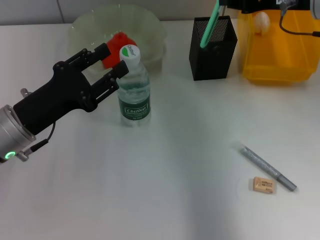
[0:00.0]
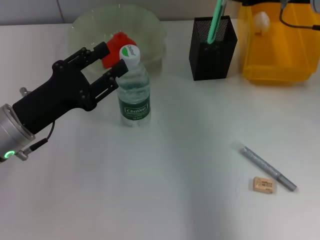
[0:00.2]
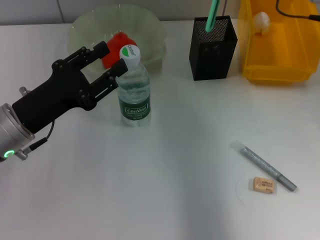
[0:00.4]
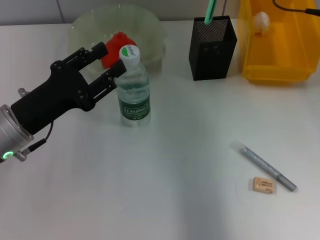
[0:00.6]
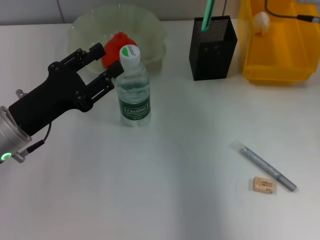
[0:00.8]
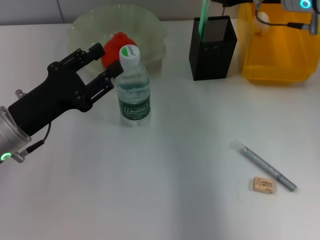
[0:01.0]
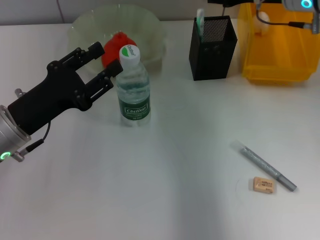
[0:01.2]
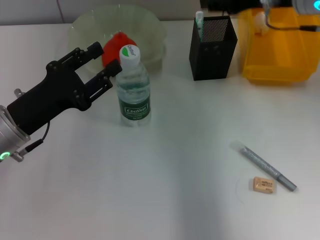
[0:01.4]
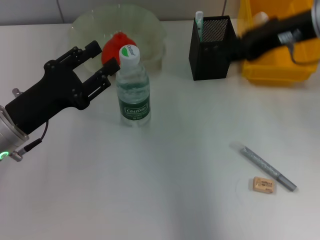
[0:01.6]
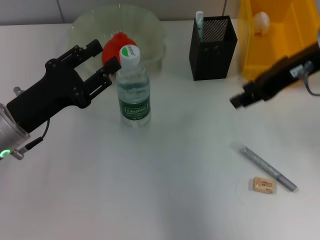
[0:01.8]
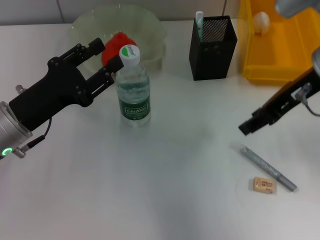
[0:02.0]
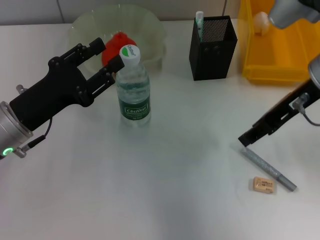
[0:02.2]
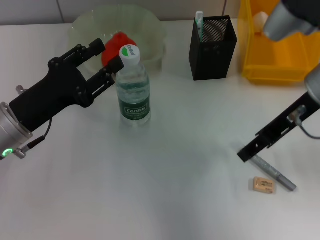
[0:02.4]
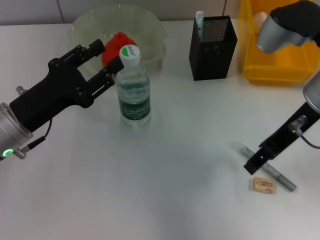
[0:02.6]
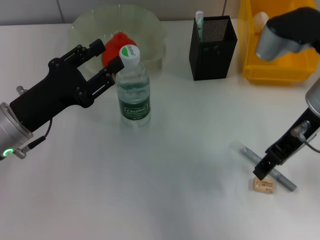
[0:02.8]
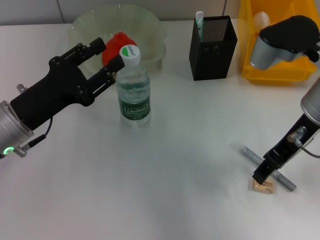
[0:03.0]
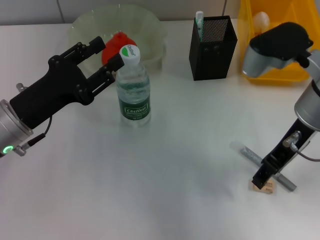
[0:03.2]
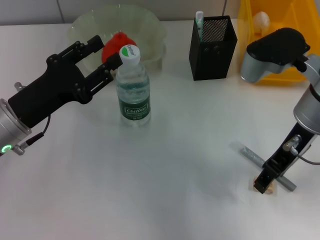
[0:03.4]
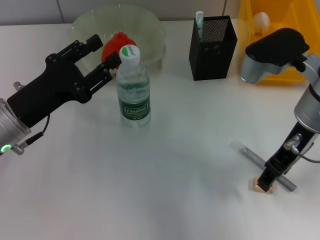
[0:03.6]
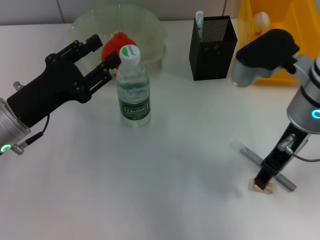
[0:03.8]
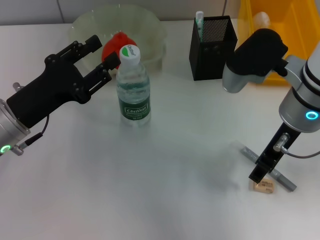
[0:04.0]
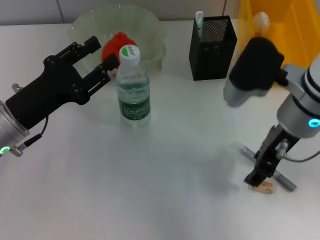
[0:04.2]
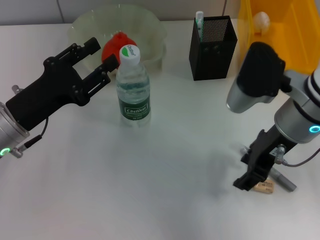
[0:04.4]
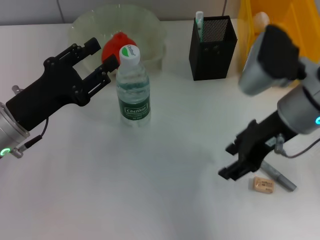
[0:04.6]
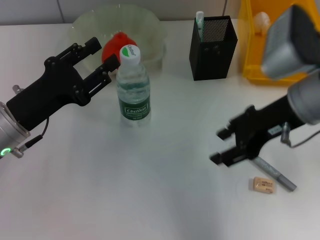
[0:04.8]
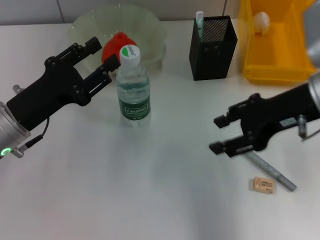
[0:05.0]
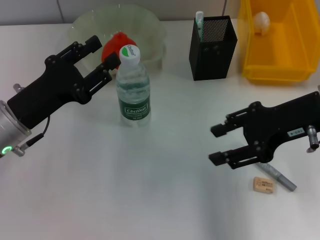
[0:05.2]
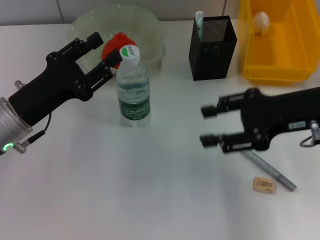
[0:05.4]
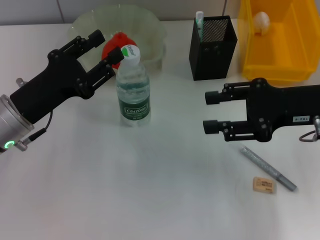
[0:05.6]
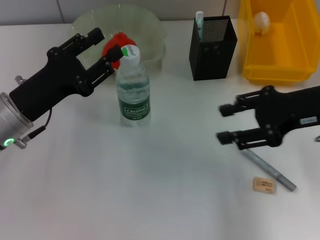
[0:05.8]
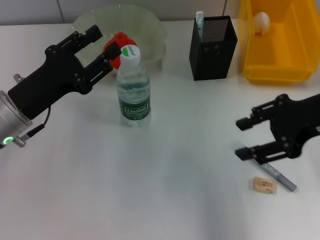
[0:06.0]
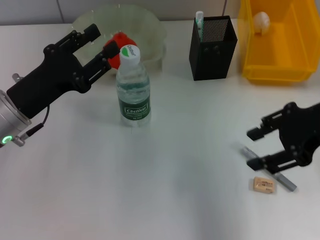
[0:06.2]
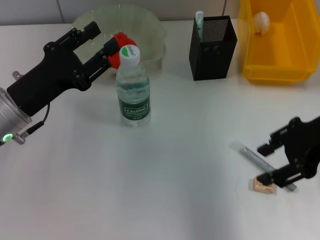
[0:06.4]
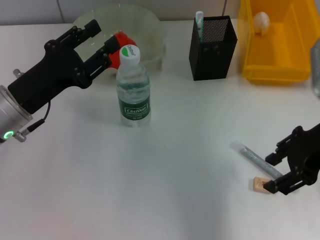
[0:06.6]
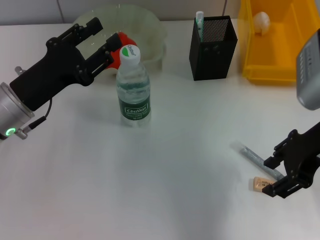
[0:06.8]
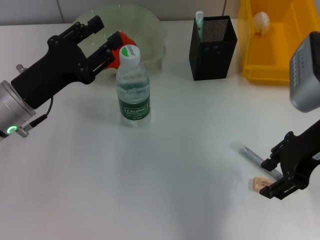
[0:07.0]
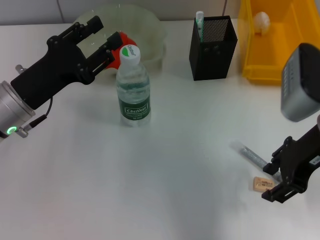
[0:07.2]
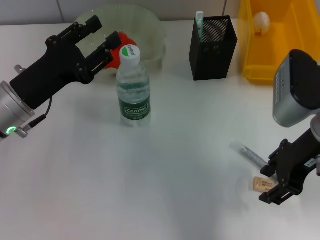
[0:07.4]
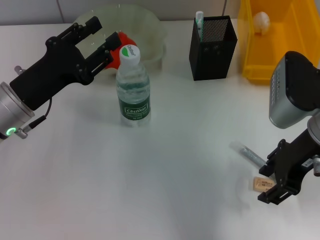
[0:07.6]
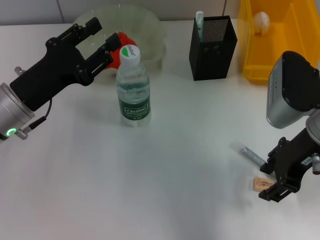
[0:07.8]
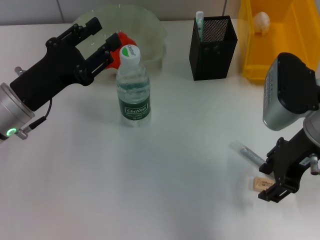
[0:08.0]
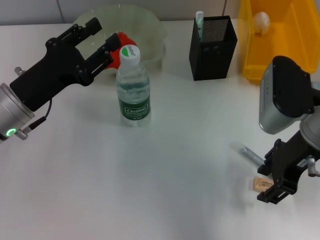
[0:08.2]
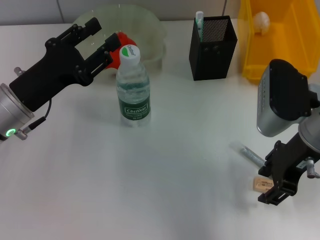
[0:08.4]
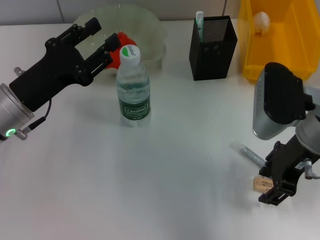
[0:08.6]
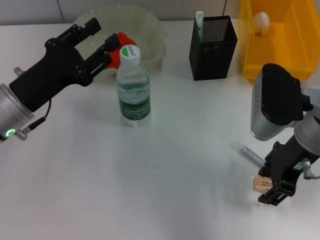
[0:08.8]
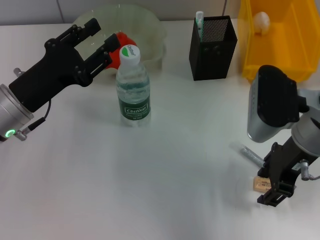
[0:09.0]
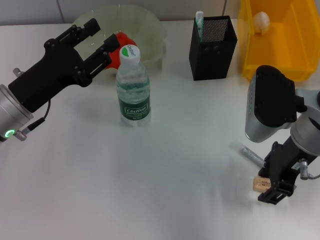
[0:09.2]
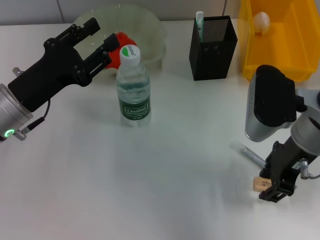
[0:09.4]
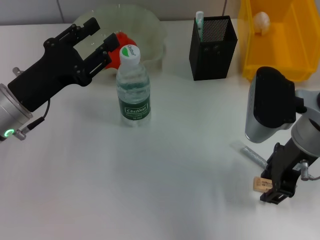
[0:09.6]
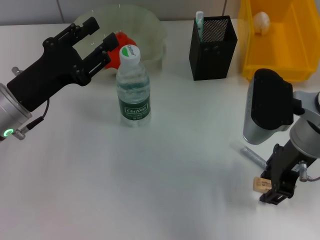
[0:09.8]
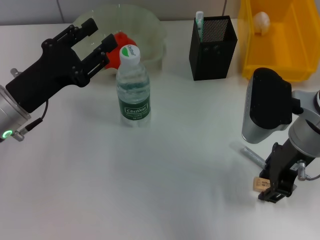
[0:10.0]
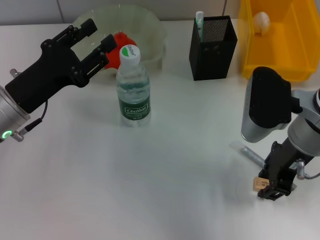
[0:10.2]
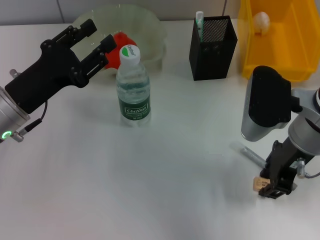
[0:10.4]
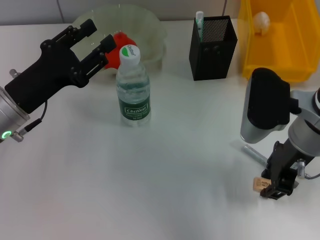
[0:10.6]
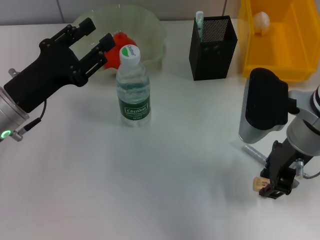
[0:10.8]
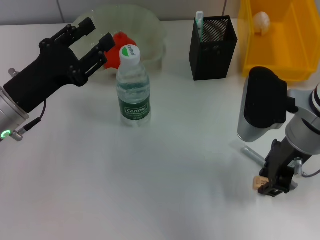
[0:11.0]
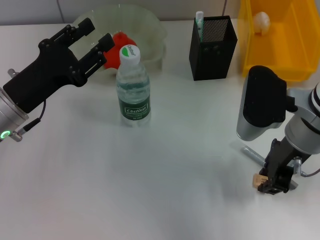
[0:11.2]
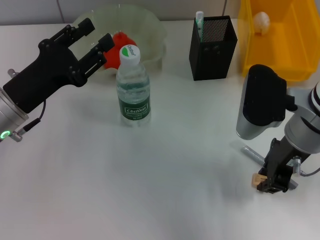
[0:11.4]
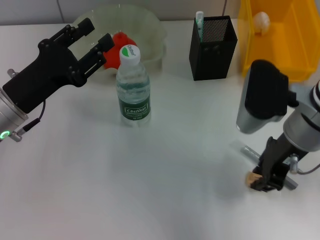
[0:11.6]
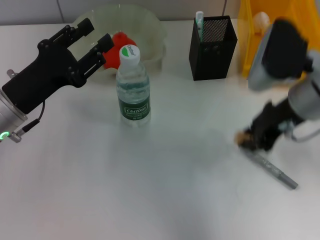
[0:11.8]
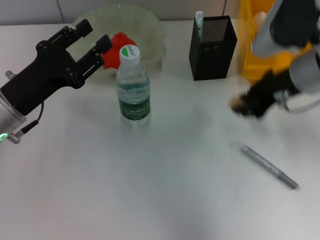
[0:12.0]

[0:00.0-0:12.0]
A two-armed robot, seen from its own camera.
Step, 0:00.0 to 0:01.4: Place the blue utility knife into the pen holder with the right hand.
Step, 0:01.6 to 0:11.2: Grab the eraser with the right hand.
0:00.0 to 0:01.6: The right gripper opens up.
0:01.6 to 0:03.0: The right gripper shifts by about 5 cm.
0:04.4 to 0:06.0: The right gripper travels to the right by roughly 10 cm.
0:06.0 to 0:07.6: The right gripper shifts by roughly 5 cm.
0:07.6 to 0:09.0: The grippers move only a little.
0:09.0 to 0:10.4: Both grippers stay about where they are.
0:10.4 to 0:12.0: The right gripper shifts by about 5 cm.

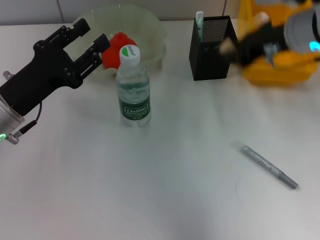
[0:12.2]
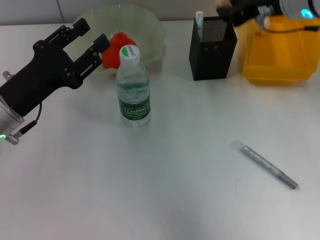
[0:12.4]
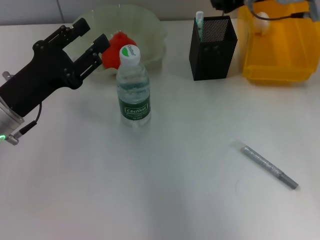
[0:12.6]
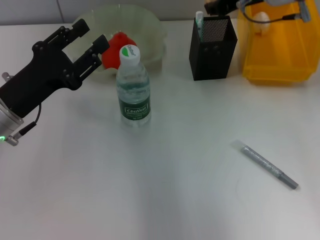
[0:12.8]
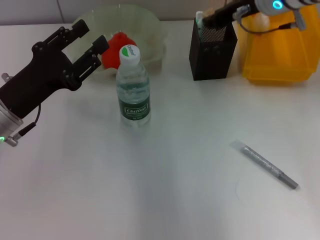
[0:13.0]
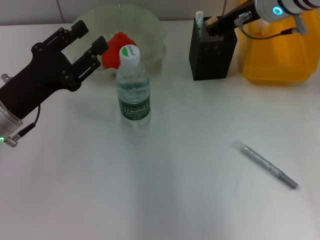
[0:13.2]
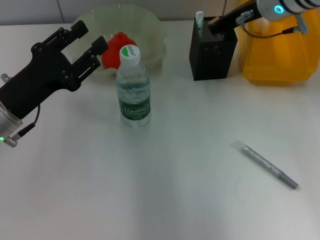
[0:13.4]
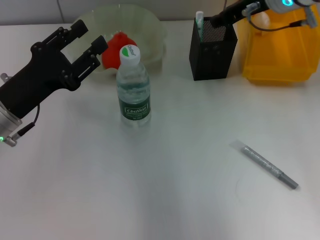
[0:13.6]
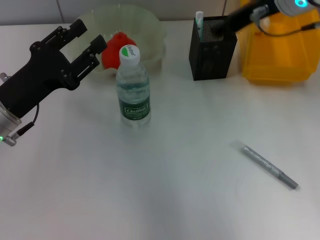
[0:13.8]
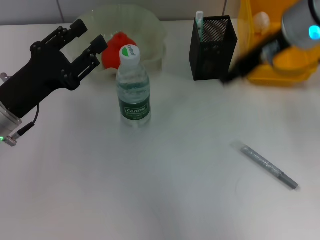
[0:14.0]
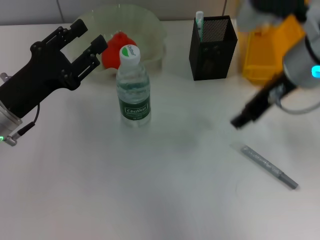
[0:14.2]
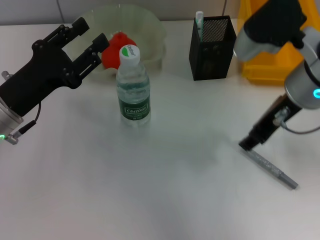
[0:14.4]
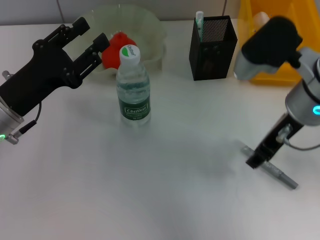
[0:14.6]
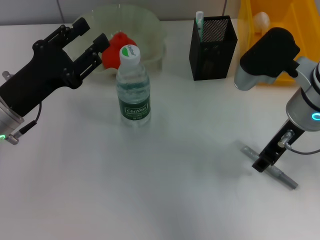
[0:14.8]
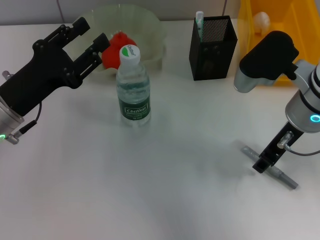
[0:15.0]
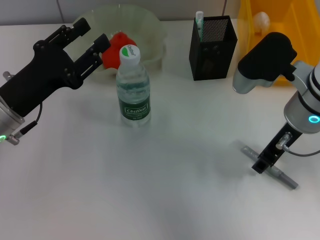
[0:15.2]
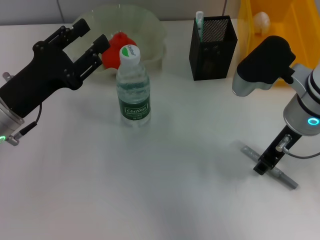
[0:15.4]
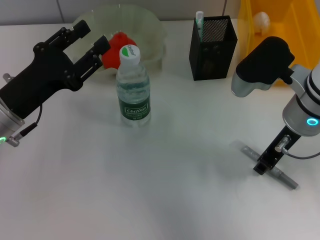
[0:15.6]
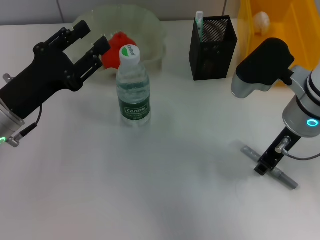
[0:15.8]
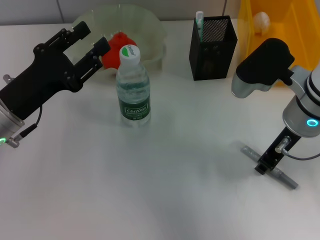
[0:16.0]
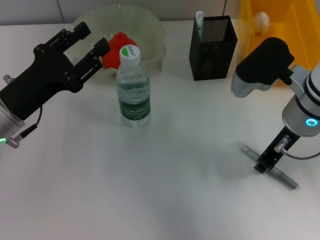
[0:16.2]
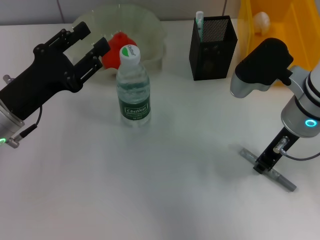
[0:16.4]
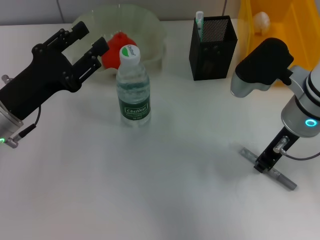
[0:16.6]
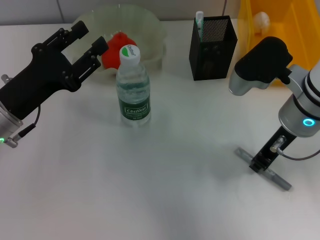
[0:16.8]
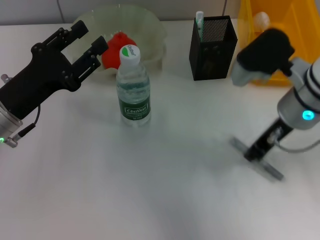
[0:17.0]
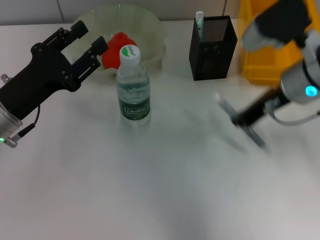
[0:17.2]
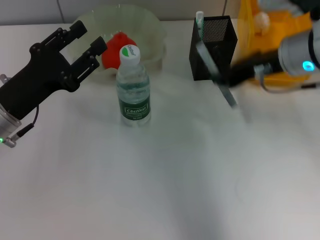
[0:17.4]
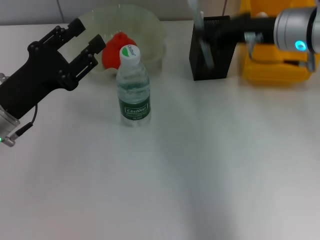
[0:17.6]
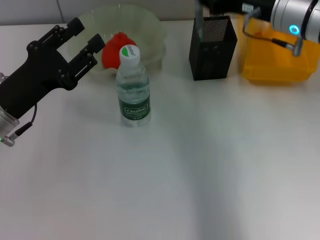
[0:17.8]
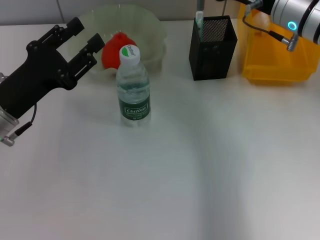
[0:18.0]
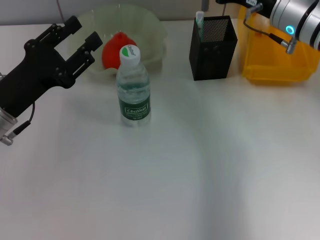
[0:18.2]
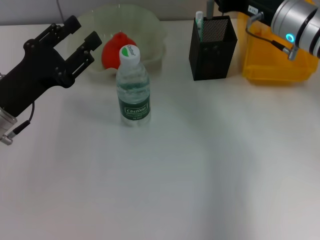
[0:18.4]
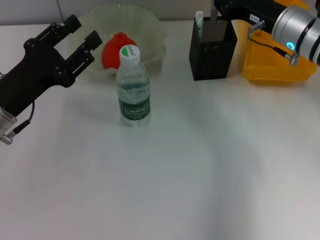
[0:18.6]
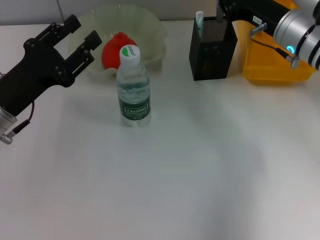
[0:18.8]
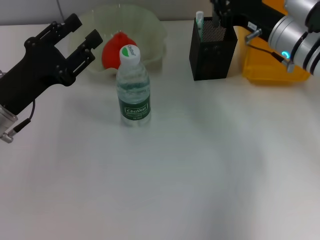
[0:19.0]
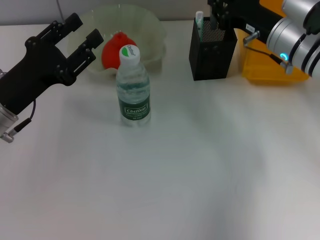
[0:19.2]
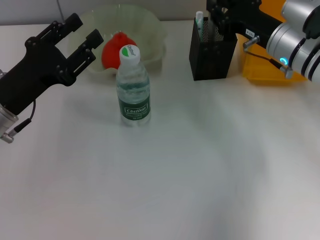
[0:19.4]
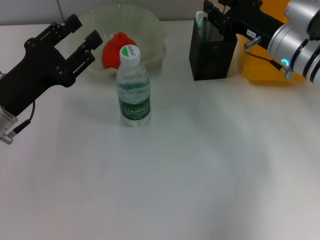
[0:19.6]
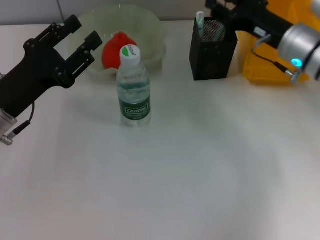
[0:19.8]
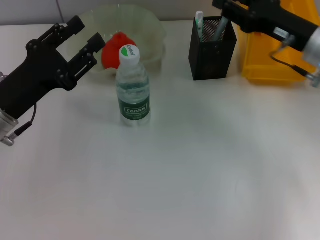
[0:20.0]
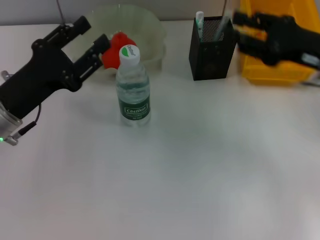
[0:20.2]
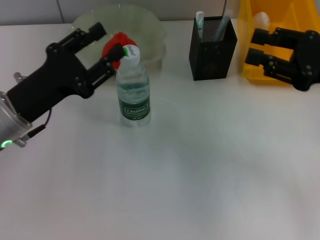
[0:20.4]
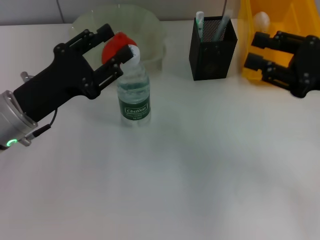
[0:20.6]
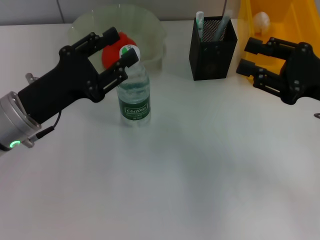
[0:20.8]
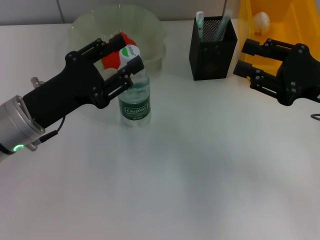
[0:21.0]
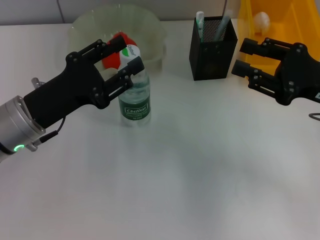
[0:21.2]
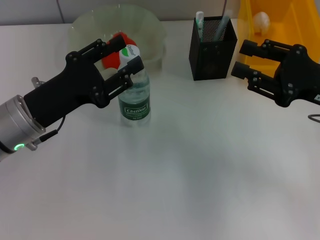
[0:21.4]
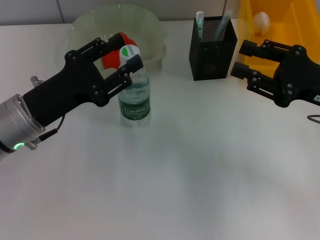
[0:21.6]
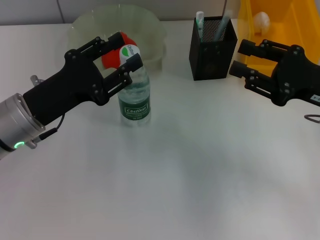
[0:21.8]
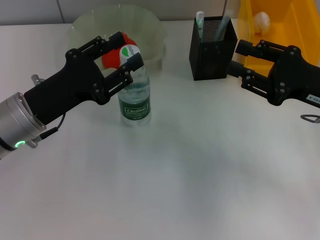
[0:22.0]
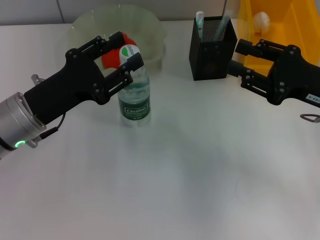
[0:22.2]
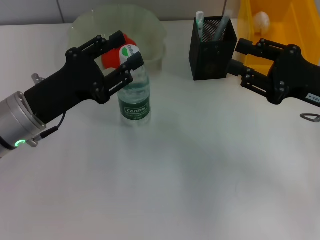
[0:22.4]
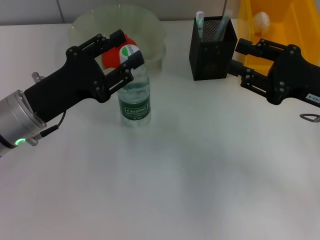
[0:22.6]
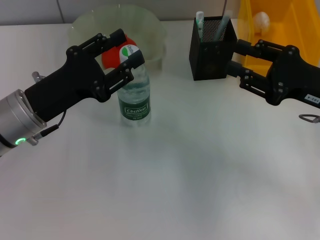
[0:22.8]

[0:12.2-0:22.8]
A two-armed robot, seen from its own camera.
Step, 0:12.2 to 0:13.6: Put the eraser into the pen holder with the right hand.
Step, 0:13.8 to 0:16.6: Grab the gray glue with the right hand.
Step, 0:16.8 to 0:19.4: Place the gray glue into the pen holder with the right hand.
0:13.8 to 0:15.2: The right gripper travels downward and backward by some 10 cm.
0:15.2 to 0:16.8: The right gripper closes its fingers.
0:16.8 to 0:18.2: The right gripper goes roughly 10 cm forward.
0:18.2 to 0:19.8: The right gripper changes place by some 5 cm, and opens its fingers.
0:19.8 to 0:21.2: The right gripper heads backward and to the right, covering some 10 cm.
0:21.2 to 0:22.8: The two grippers keep their place.
